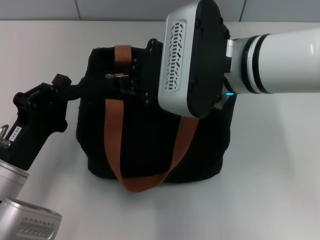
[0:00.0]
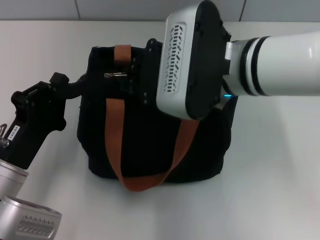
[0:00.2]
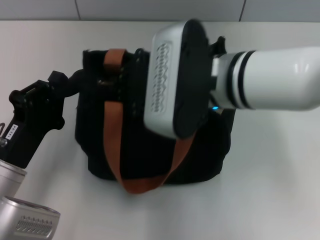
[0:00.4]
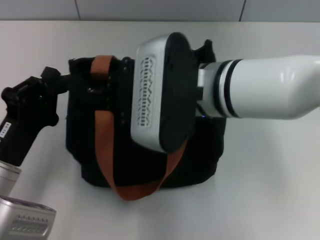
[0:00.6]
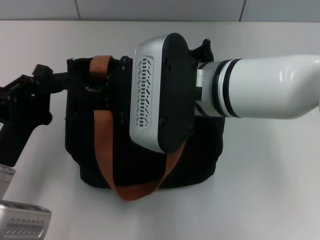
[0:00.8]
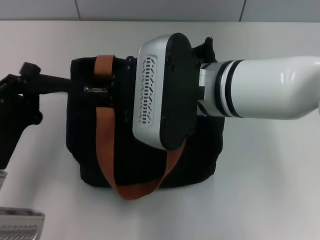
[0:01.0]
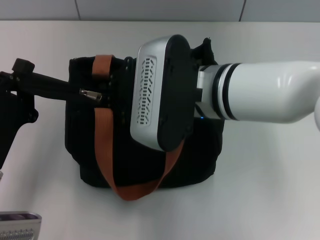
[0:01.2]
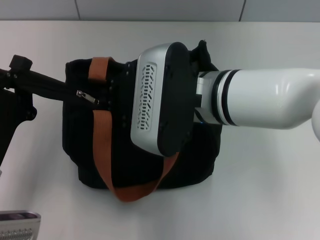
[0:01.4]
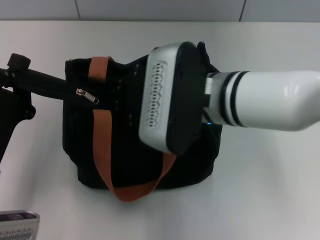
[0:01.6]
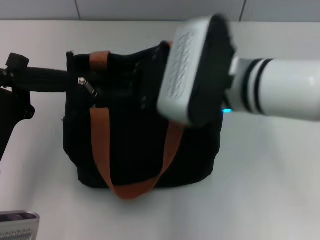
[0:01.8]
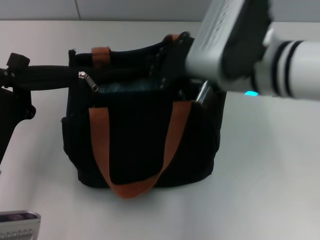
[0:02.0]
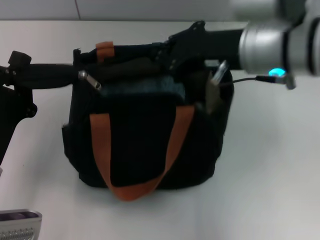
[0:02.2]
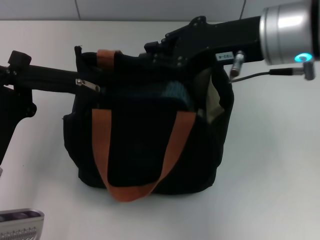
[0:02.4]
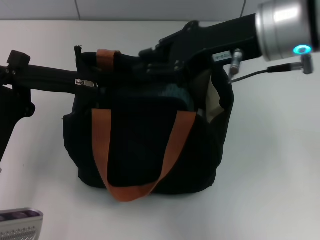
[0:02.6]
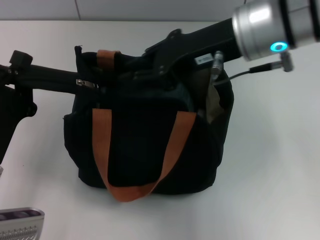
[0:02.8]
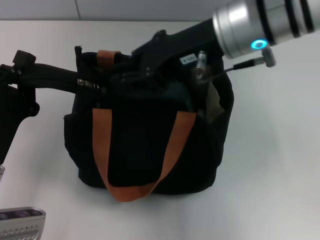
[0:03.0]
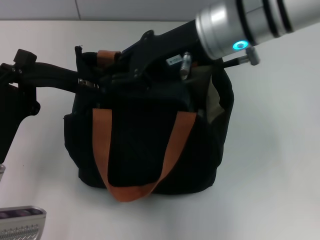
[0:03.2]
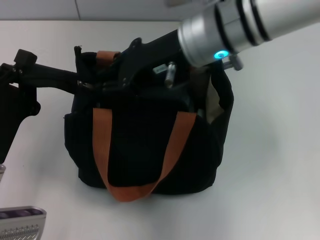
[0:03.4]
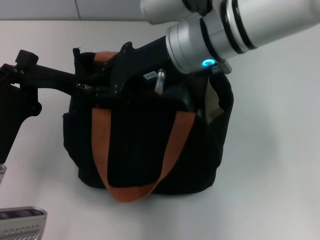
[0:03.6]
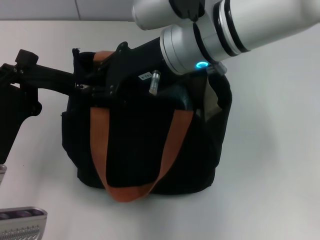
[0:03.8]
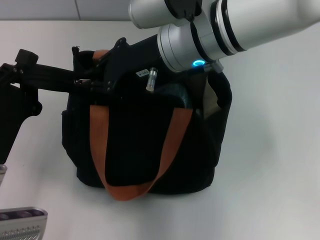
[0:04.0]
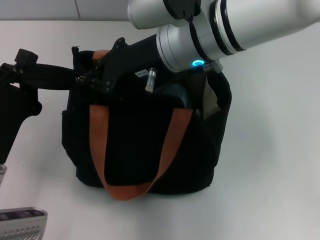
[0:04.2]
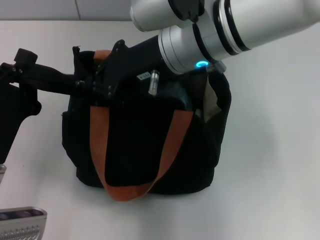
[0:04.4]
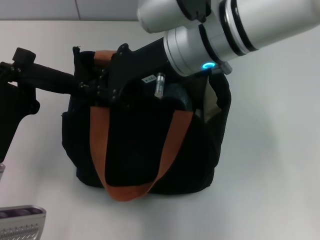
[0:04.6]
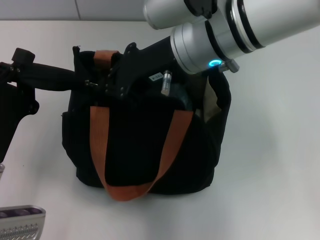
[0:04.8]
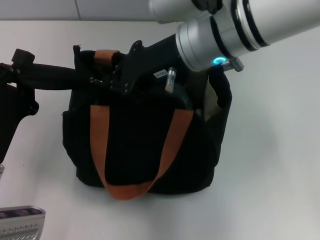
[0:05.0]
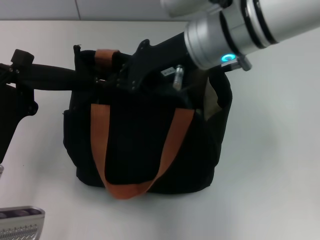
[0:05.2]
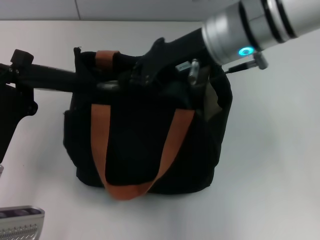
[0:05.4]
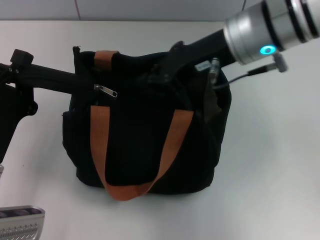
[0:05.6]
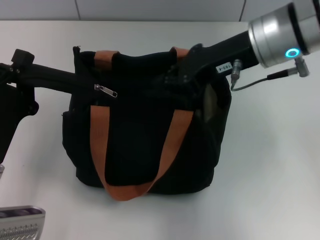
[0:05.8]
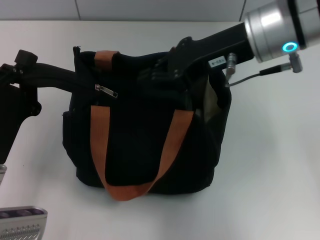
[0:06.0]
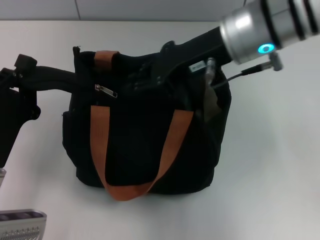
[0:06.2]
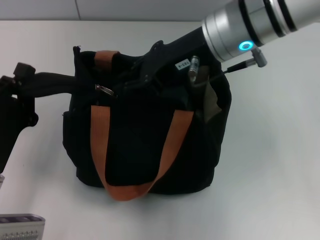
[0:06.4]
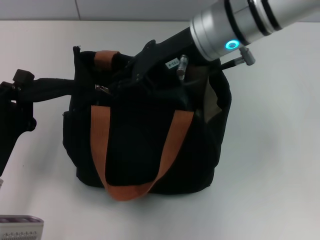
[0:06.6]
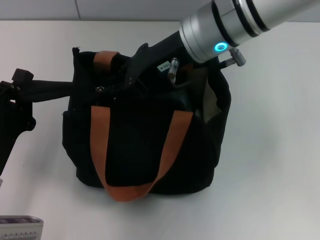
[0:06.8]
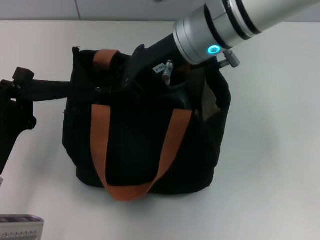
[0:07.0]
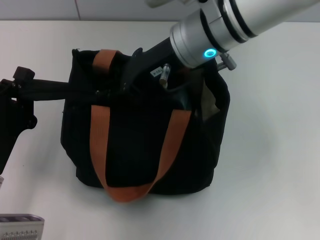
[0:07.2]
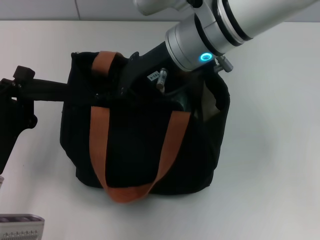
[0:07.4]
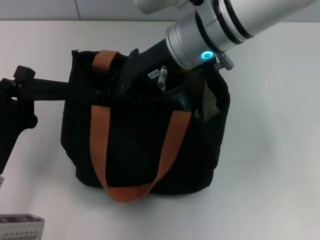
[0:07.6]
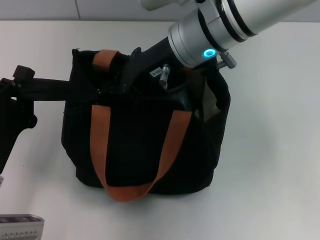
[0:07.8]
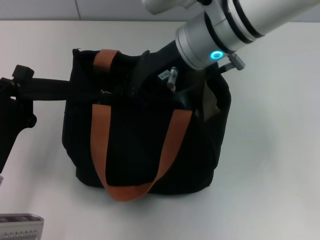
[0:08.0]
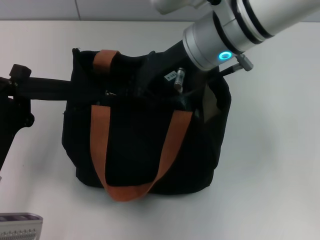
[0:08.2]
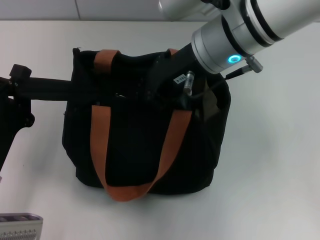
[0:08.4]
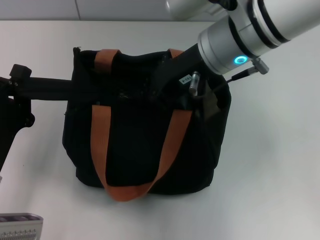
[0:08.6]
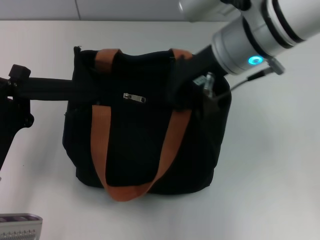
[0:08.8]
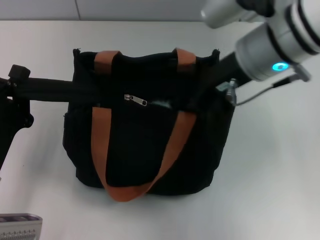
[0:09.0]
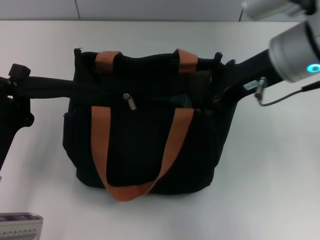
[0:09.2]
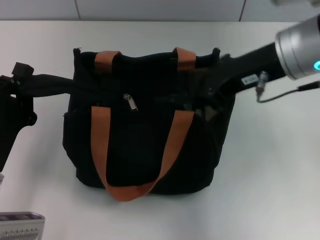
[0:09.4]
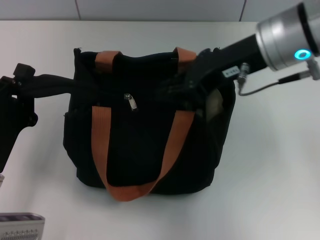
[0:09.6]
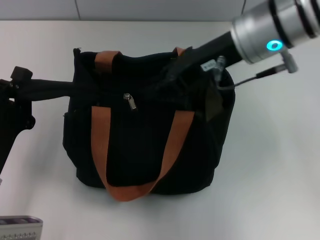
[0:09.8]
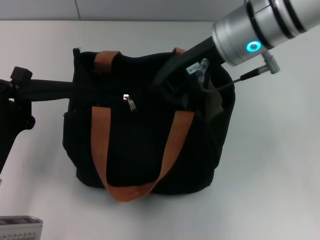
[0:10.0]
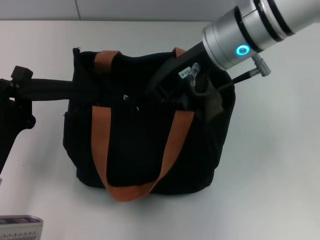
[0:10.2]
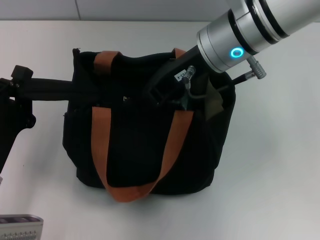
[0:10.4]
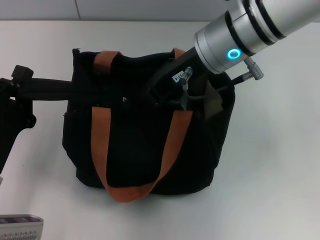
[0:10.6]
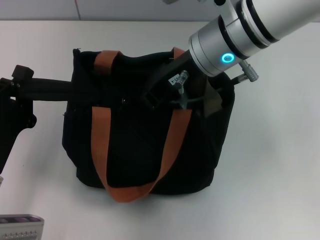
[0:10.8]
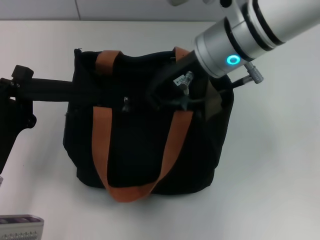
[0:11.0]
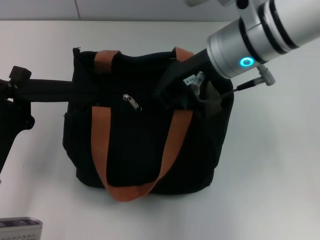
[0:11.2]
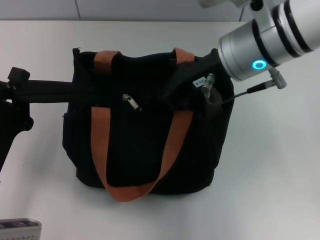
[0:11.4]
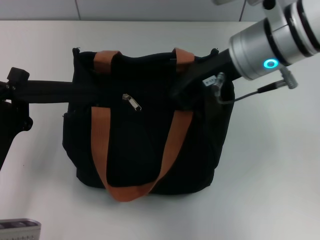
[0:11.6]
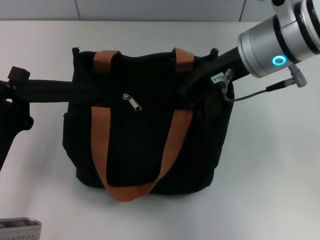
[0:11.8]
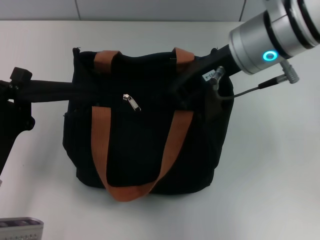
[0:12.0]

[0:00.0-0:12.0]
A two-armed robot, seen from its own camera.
0:01.6 to 0:03.0: The right gripper heads upward and forward, covering about 10 cm.
0:03.0 to 0:04.4: The right gripper goes approximately 5 cm to the left.
0:04.4 to 0:06.0: The right gripper goes some 10 cm to the right.
0:06.0 to 0:07.6: The right gripper heads to the left, covering some 10 cm.
0:07.6 to 0:09.0: The right gripper is displaced to the right by roughly 5 cm.
0:09.0 to 0:12.0: The grippers stay close to where they were, moving slightly.

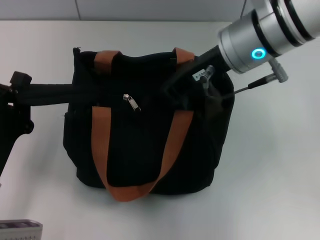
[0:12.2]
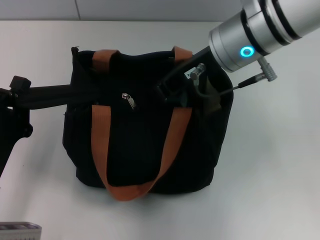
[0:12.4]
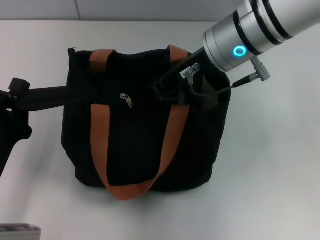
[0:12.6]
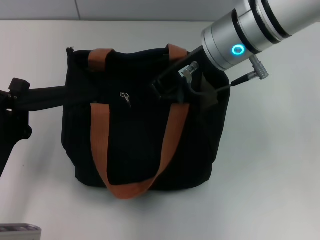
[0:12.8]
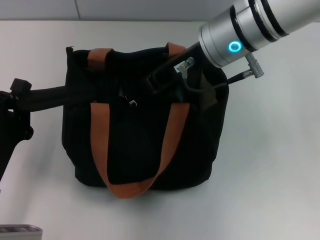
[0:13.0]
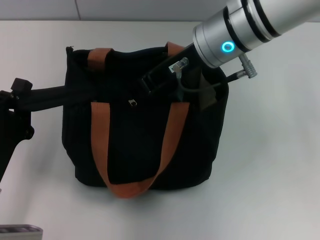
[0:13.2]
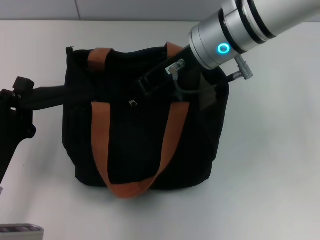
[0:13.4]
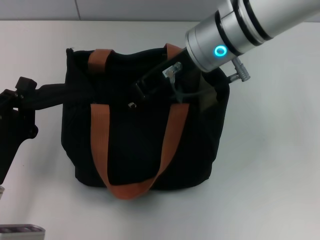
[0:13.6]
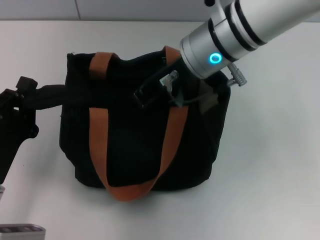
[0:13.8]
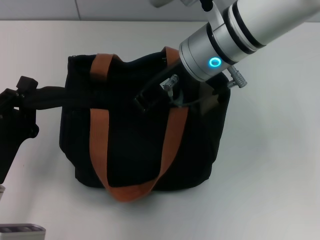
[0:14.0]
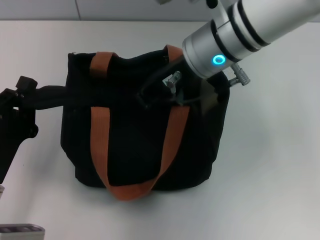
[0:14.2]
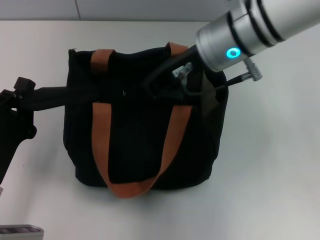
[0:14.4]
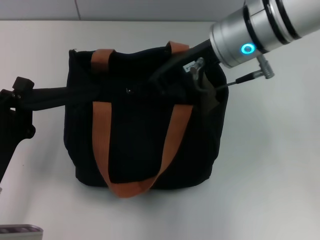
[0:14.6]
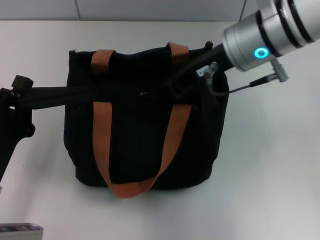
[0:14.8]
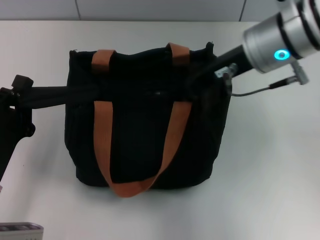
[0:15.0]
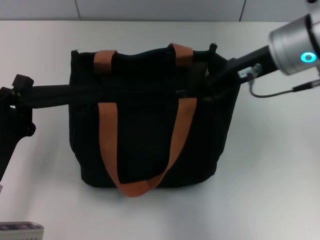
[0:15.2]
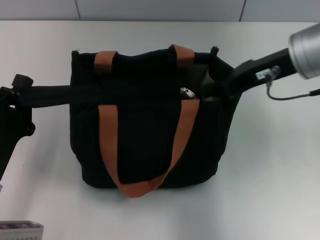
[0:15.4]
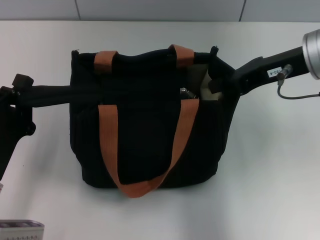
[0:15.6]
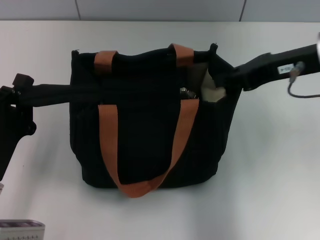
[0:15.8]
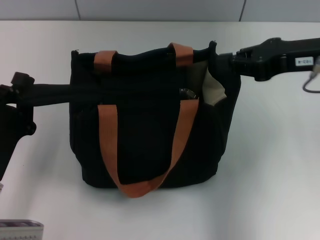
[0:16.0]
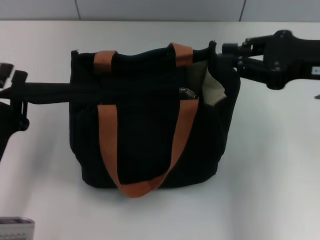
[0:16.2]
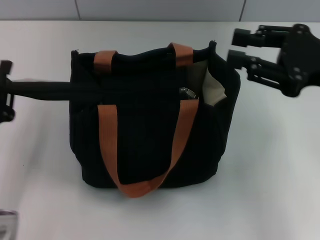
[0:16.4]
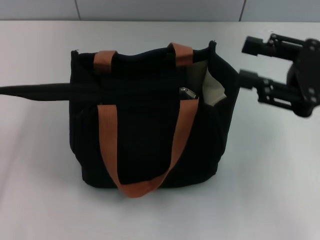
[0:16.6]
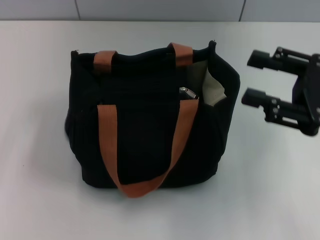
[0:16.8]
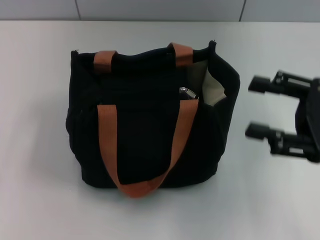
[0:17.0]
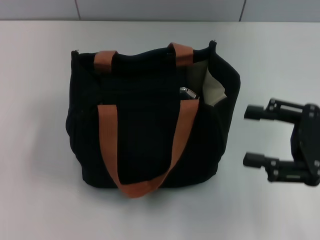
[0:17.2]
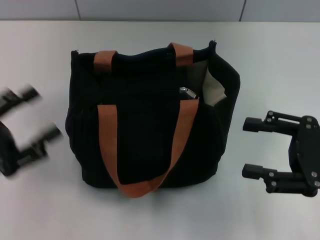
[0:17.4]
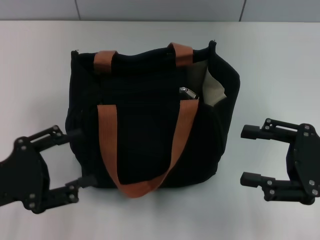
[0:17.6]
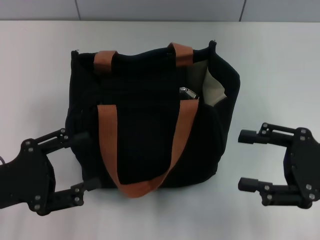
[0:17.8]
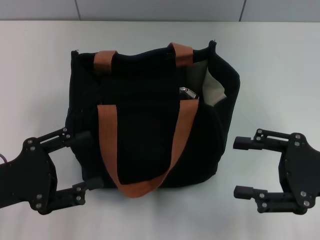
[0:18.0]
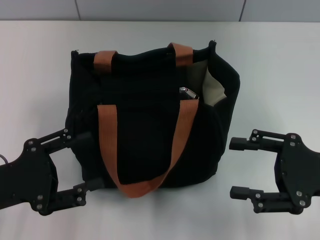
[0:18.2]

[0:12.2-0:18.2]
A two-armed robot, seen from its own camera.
Step, 0:12.2 to 0:15.0: Pull up the zipper with your right hand.
0:12.2 to 0:13.8: The grippers move only a little.
0:13.8 to 0:15.2: The right gripper heads to the right, covering some 10 cm.
0:15.2 to 0:16.6: The left gripper opens up. The right gripper travels to the right and backward by roughly 15 cm, and opens.
0:16.6 to 0:18.2: The left gripper opens its fingers, while the right gripper is displaced downward by approximately 5 cm.
